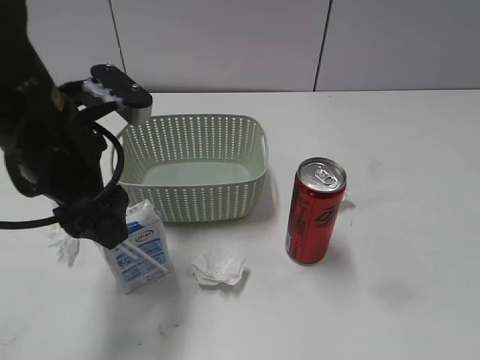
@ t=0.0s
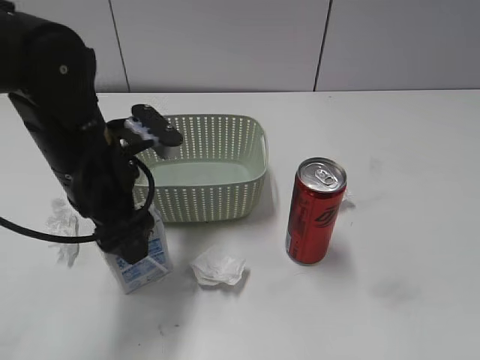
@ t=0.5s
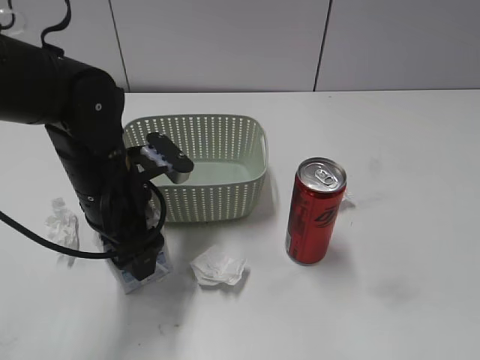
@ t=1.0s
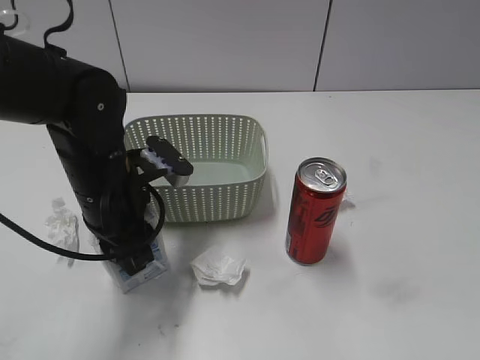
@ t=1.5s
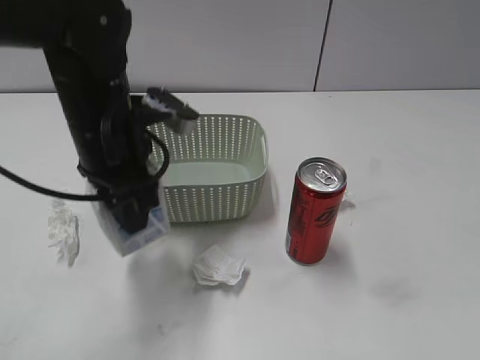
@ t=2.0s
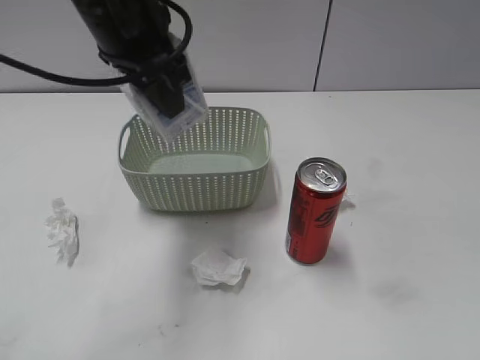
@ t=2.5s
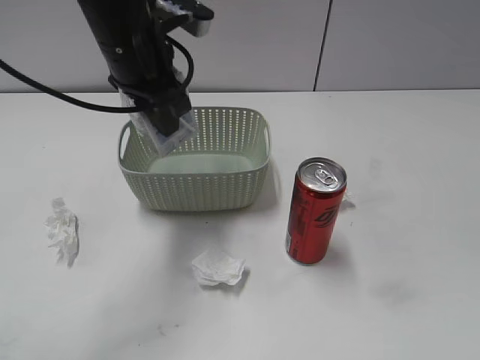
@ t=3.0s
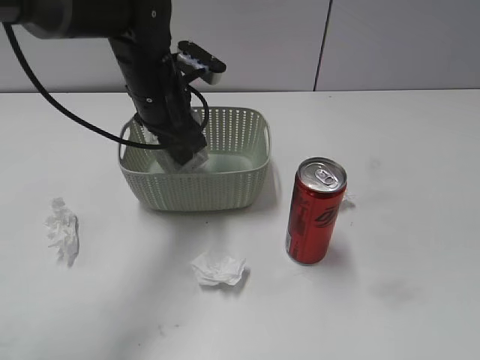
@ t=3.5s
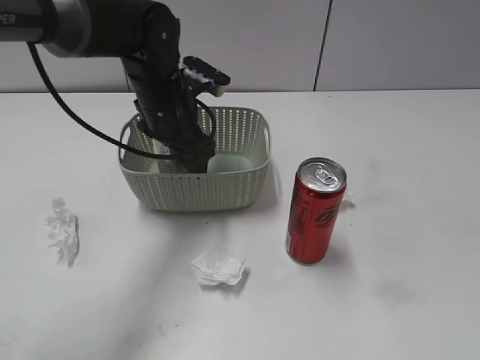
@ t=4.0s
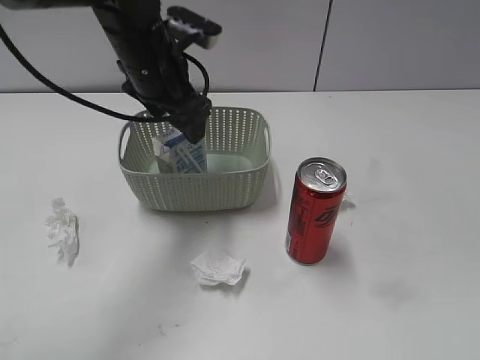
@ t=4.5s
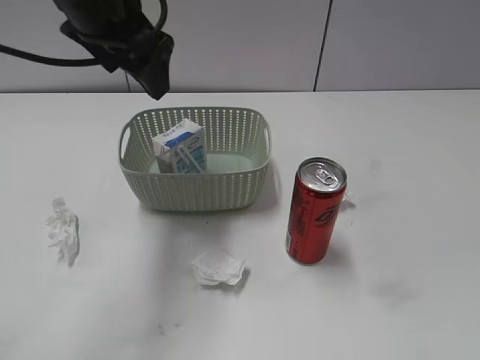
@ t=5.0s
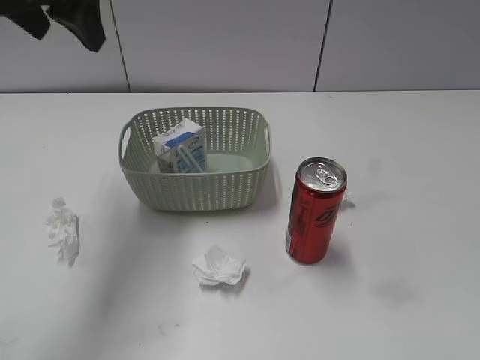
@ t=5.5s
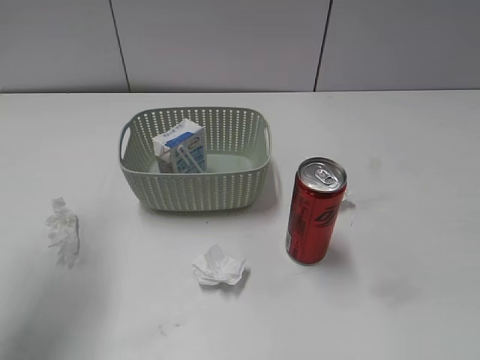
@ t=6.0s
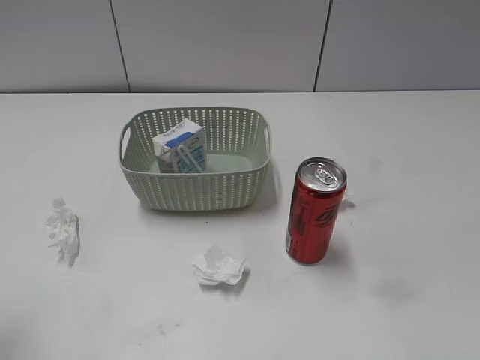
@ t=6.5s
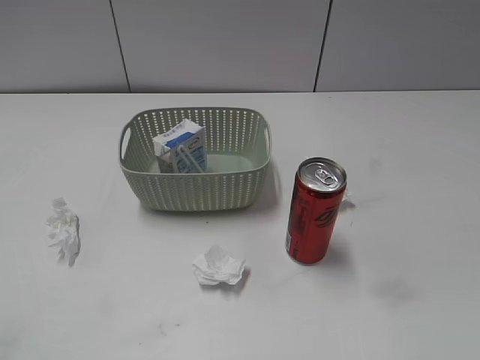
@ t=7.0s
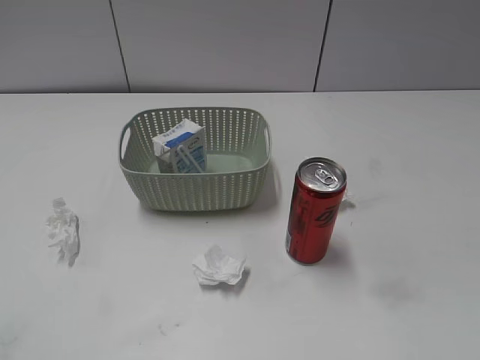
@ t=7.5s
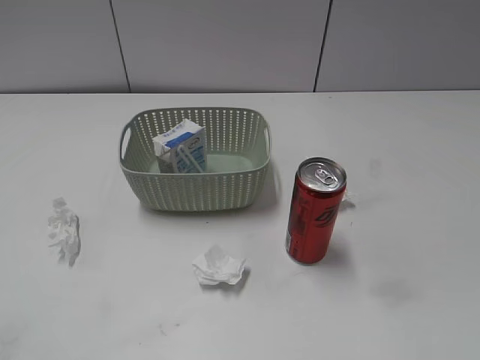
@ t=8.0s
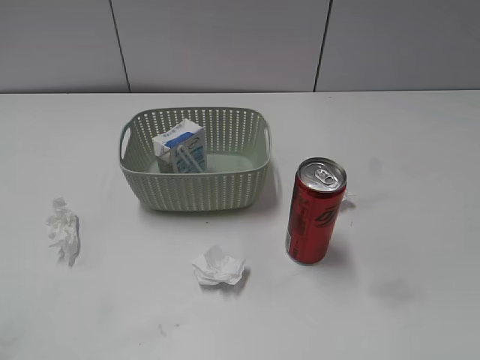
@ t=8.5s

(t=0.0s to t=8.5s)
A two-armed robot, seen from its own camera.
Step, t=1.5s - t=4.5s: Place the milk in the basket with left gripper.
t=0.0s - t=2.0s: The left gripper reaches approximately 10 cm downward, then returns, and closes.
t=2.0s - t=4.0s: The left gripper moves forward, approximately 10 cm, moves approximately 10 cm upward and comes back, and opens.
t=4.0s - t=6.5s: The left gripper shifts some 35 cm backward, to the left and upward.

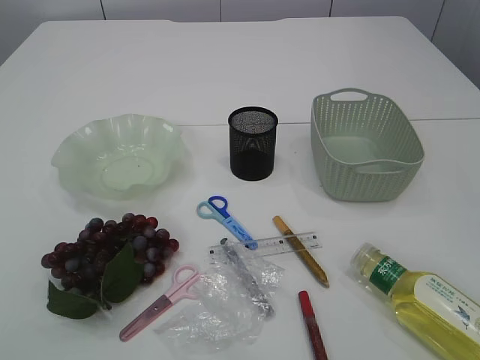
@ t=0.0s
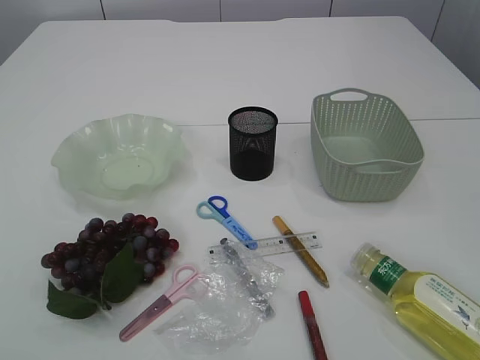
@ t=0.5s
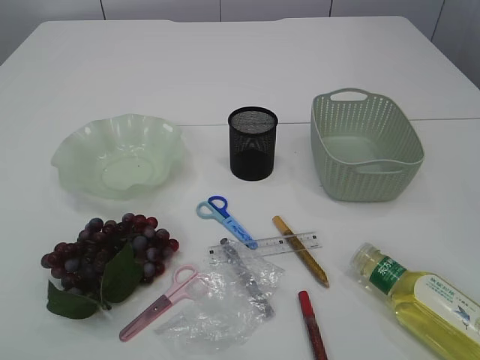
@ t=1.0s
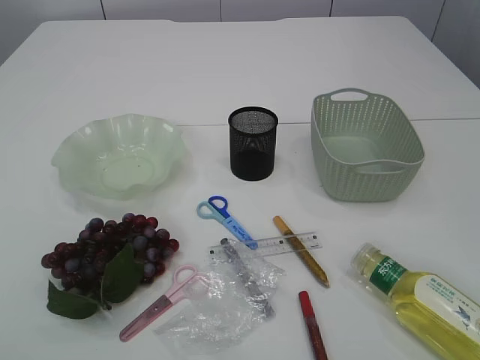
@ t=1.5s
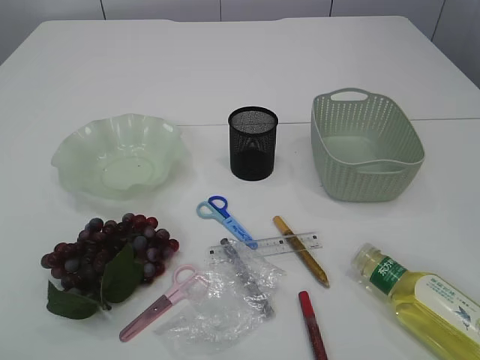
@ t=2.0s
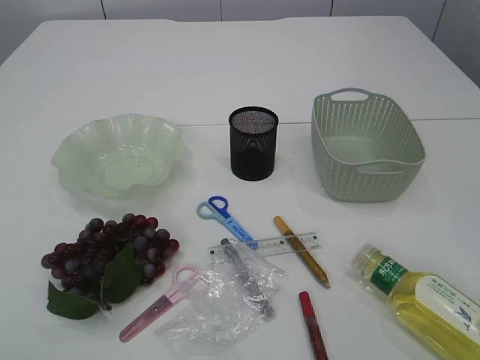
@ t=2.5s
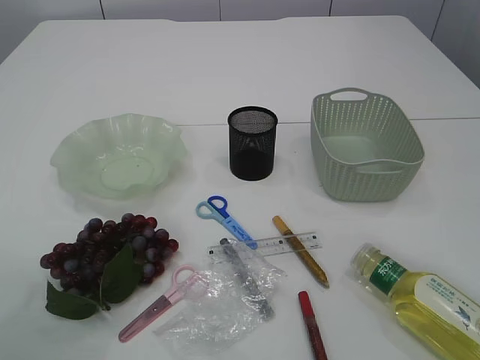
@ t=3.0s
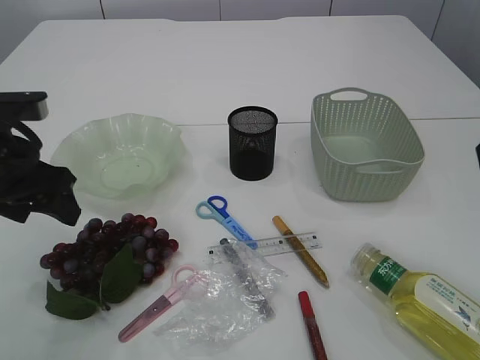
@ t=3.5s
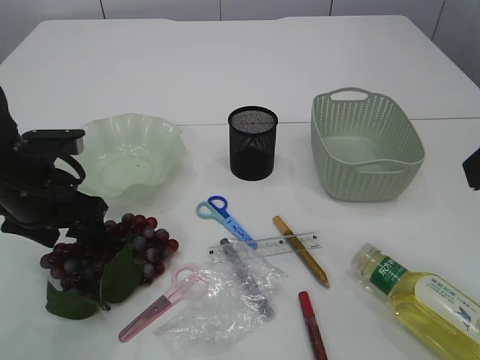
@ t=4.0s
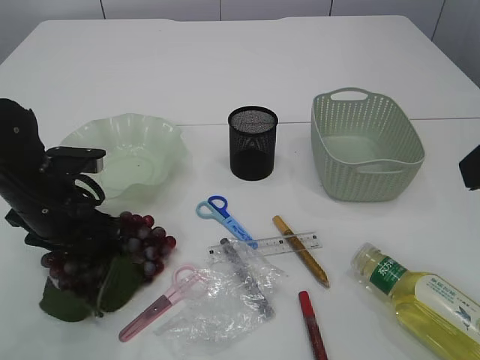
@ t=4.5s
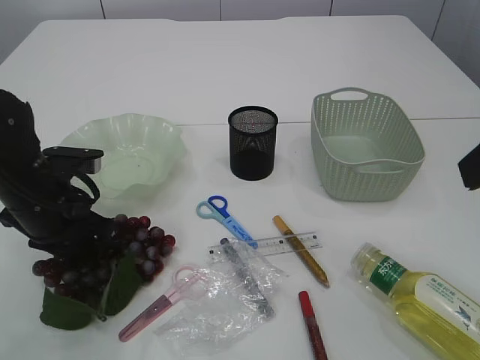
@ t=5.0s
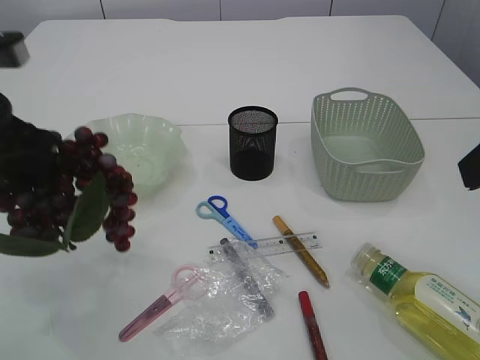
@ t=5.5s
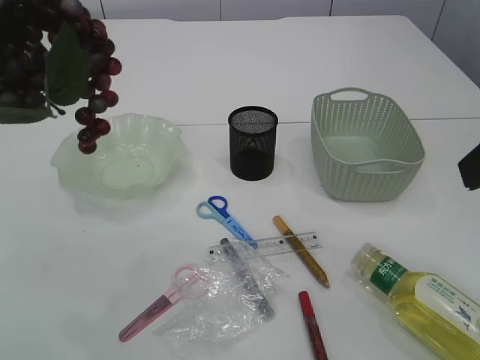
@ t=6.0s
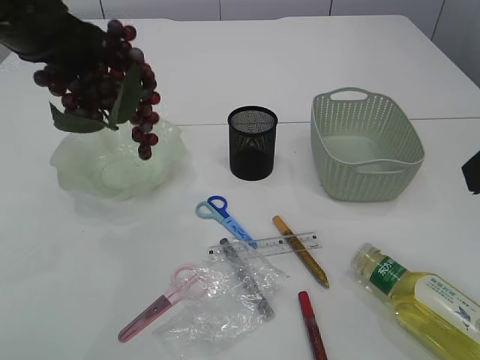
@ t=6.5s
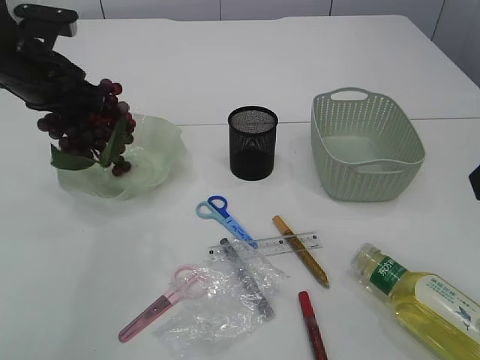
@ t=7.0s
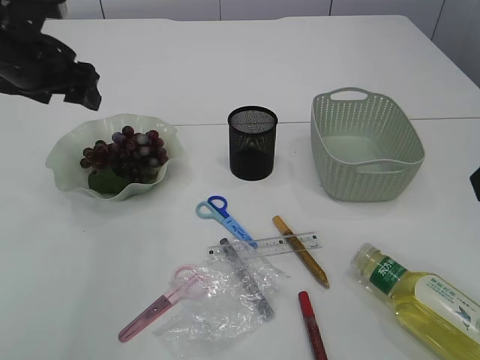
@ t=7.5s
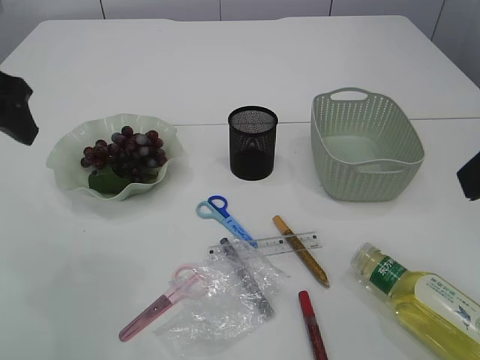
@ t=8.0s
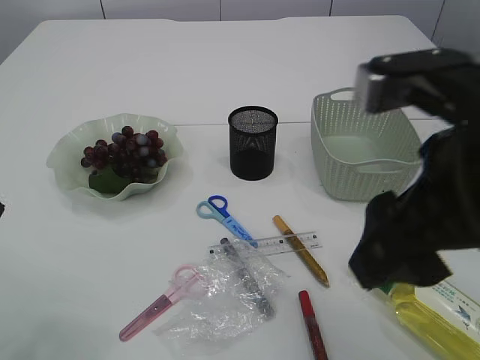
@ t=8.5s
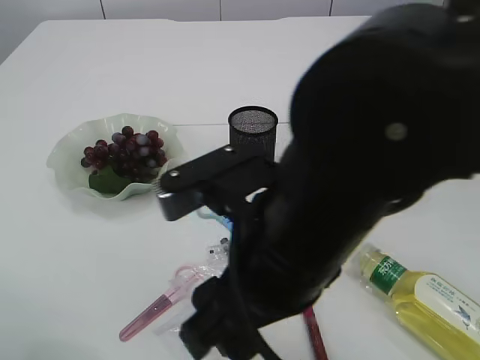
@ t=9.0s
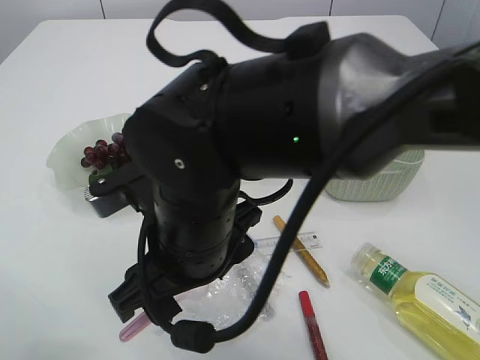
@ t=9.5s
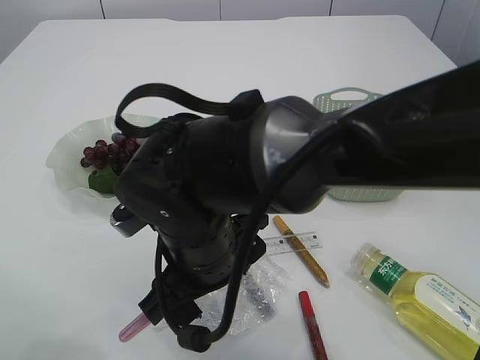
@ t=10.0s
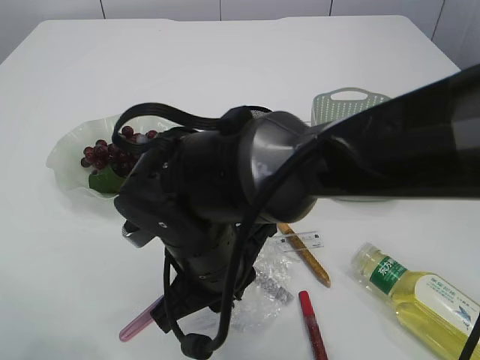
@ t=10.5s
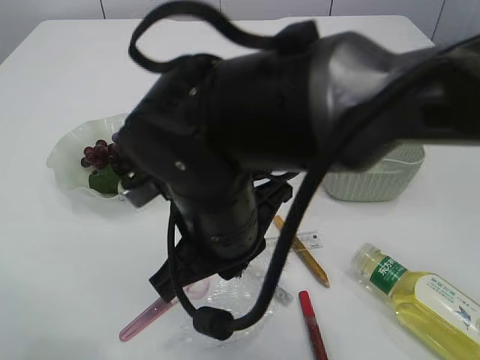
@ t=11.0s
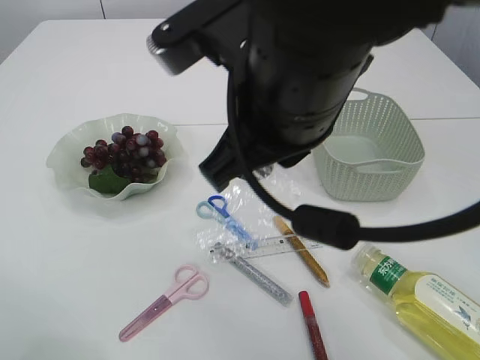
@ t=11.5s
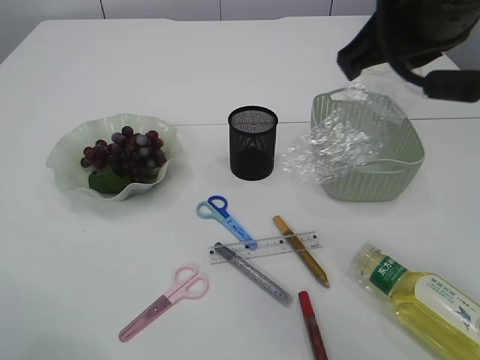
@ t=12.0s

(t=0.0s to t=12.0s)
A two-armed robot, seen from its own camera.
Step, t=0.0s - t=5.5s: Pick up the grapes.
Step, t=6.0s - t=7.5s: Place the grapes in the plate.
Step, t=8.0s - t=11.0s: Pick up the plastic.
t=2.0s - t=4.0s: The left gripper moves forward, approximately 30 cm.
t=4.0s - t=6.0s: The left gripper goes about 20 cm upward, and closes its fingers.
t=6.0s - t=8.0s: The left gripper shifts about 10 cm downward and forward, and opens up.
t=8.0s - t=10.0s: The left gripper travels backward by approximately 10 cm. The right gripper goes about 30 cm to the left and downward.
t=10.0s - t=12.0s: The right gripper is displaced upward and to the right by roughly 25 cm, and closes up.

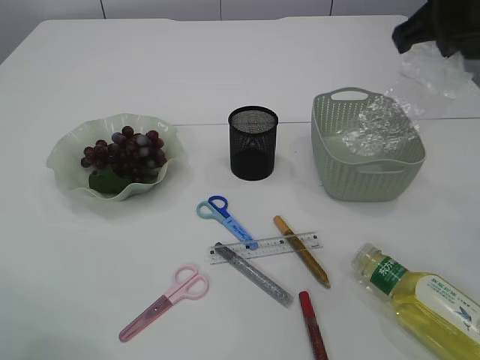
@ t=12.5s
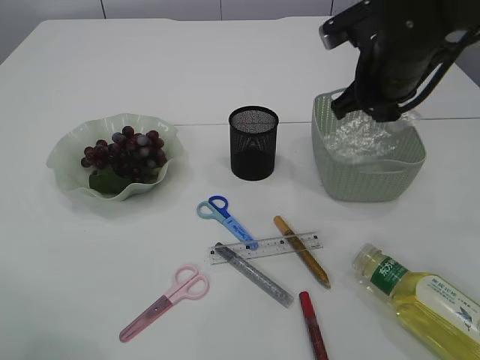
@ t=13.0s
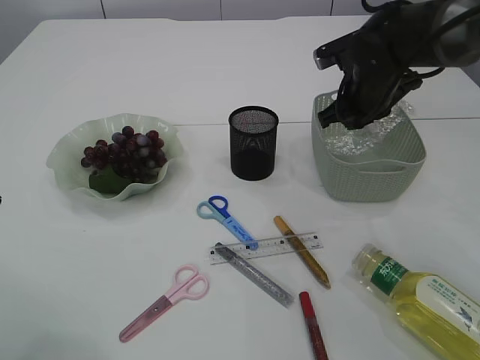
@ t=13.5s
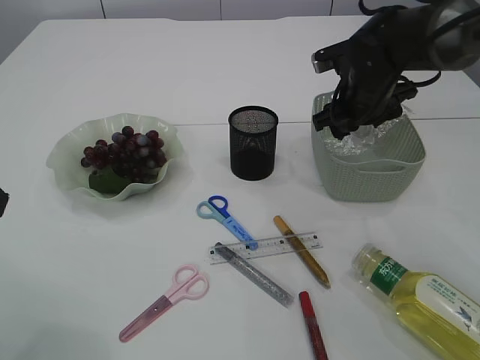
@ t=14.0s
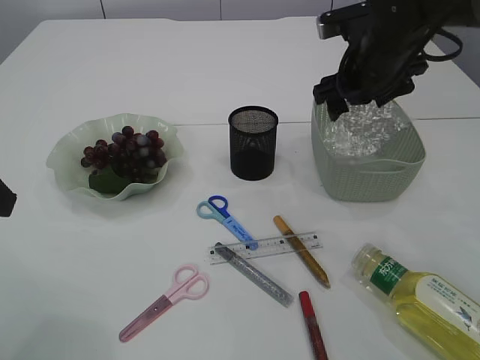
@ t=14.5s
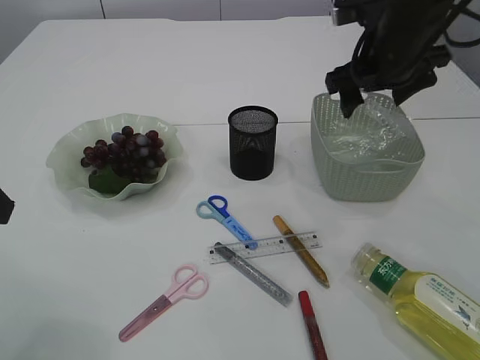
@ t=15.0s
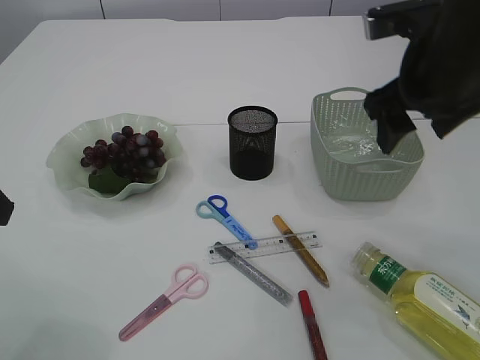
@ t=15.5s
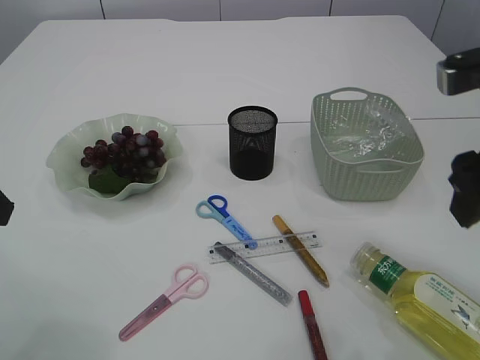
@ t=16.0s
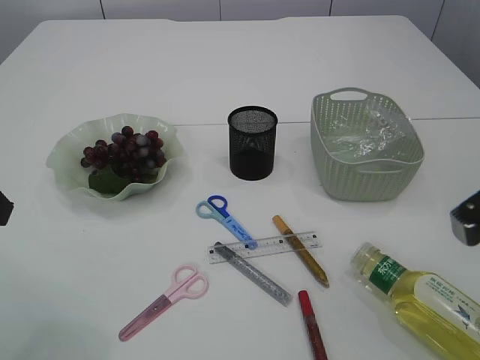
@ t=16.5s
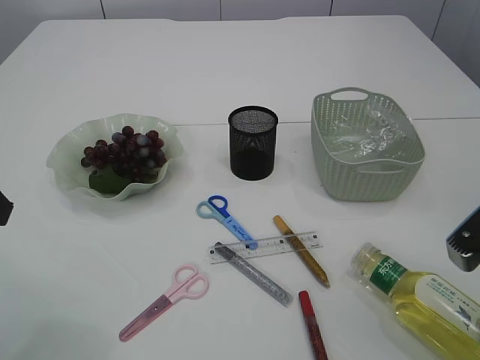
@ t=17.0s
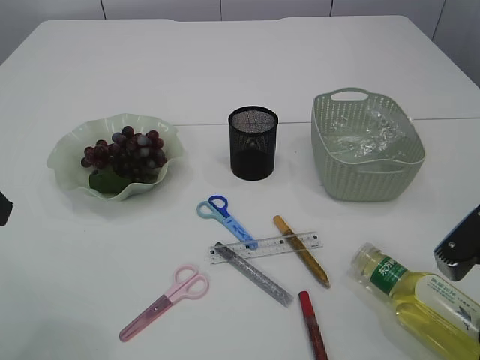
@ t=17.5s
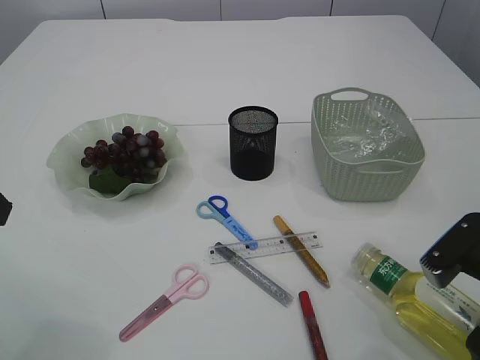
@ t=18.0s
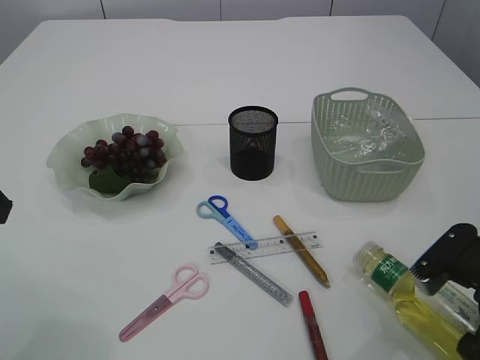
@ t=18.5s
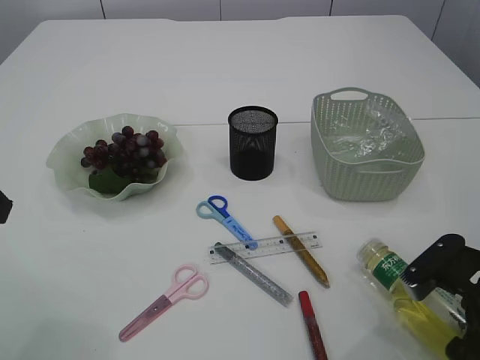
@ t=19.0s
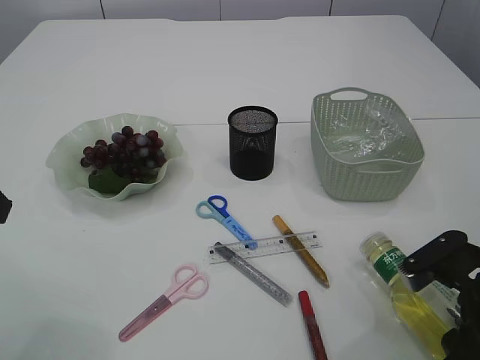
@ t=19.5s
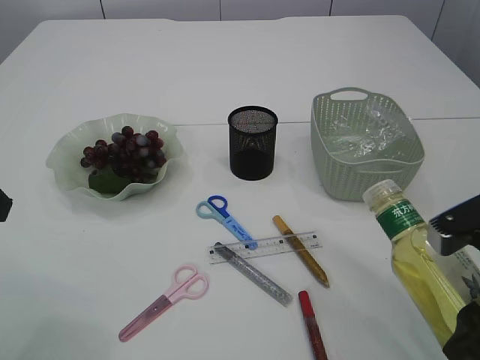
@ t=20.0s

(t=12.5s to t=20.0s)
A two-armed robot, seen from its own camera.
Step, t=12.5s - t=15.5s: Place the plastic in the basket.
t=12.5s - t=14.5s: The right gripper goes some 15 cm downward and forward, and opens.
t=14.5s - t=16.5s: The right gripper shifts approximately 25 cm backward.
t=16.5s - t=18.0s: The right gripper travels downward by roughly 5 cm.
t=18.0s - t=20.0s: There are only small adjustments of the grippers.
